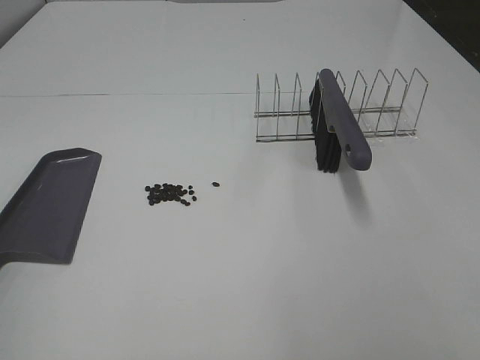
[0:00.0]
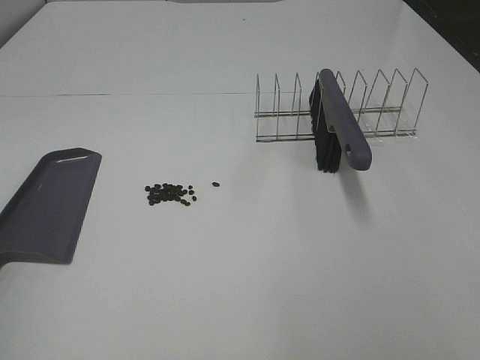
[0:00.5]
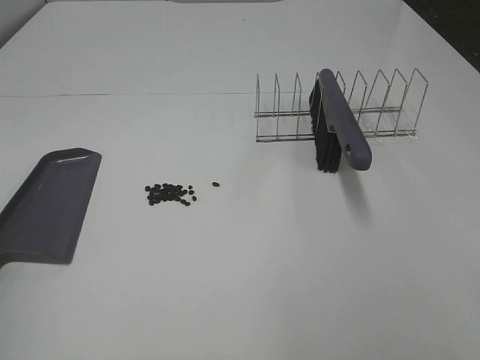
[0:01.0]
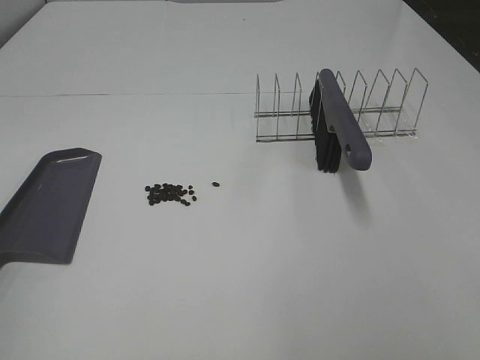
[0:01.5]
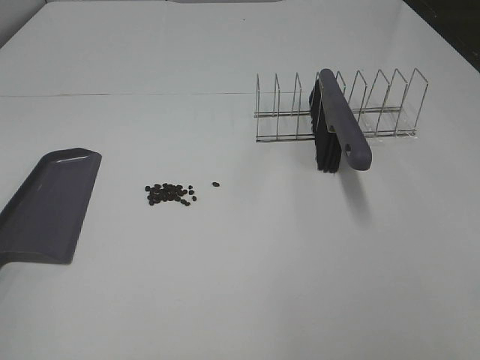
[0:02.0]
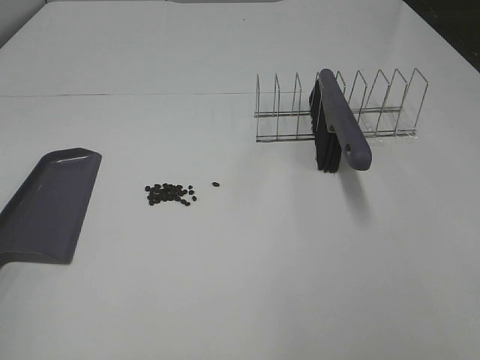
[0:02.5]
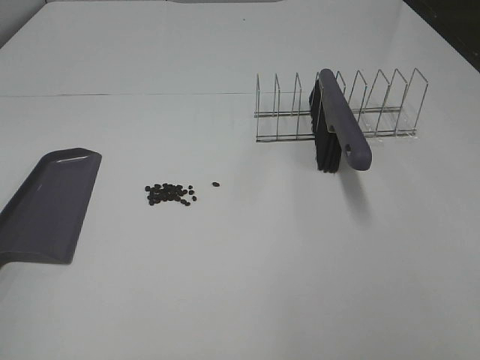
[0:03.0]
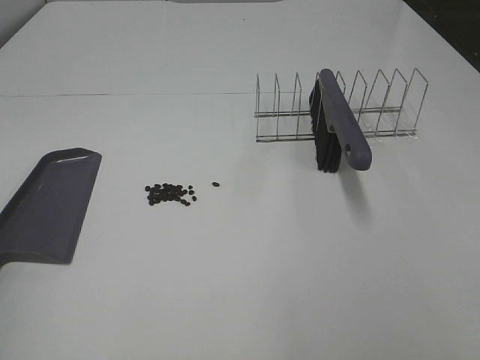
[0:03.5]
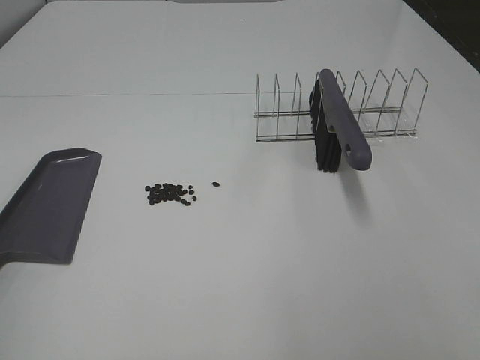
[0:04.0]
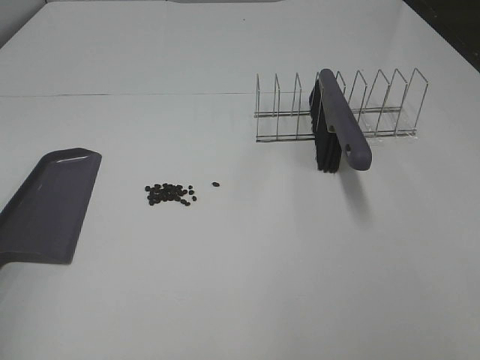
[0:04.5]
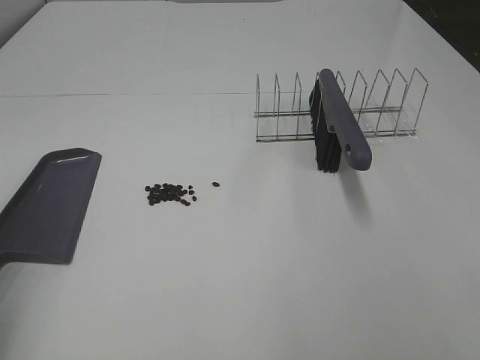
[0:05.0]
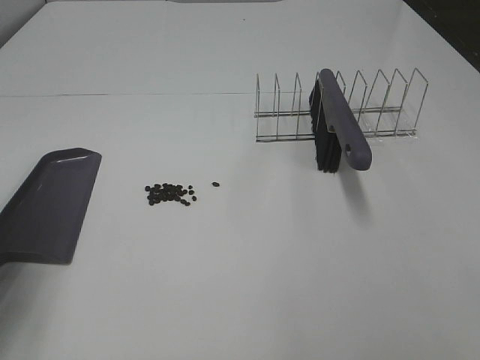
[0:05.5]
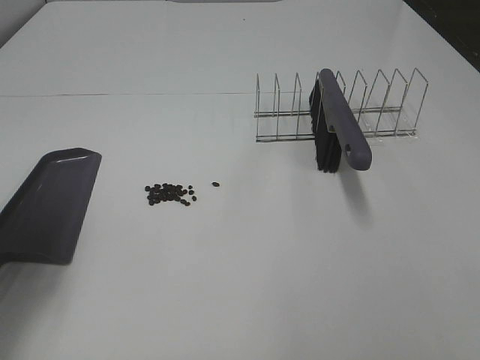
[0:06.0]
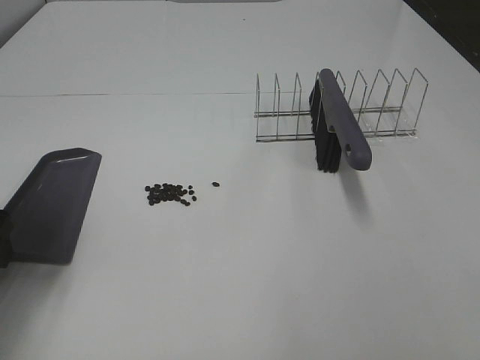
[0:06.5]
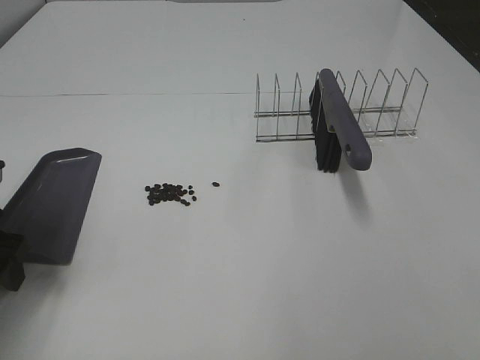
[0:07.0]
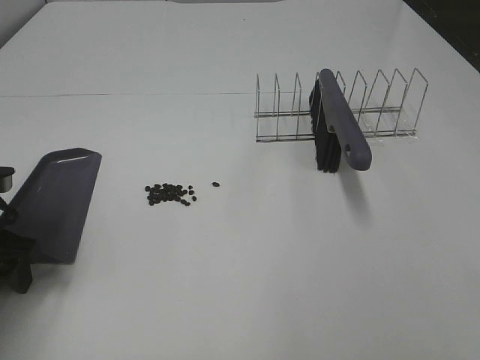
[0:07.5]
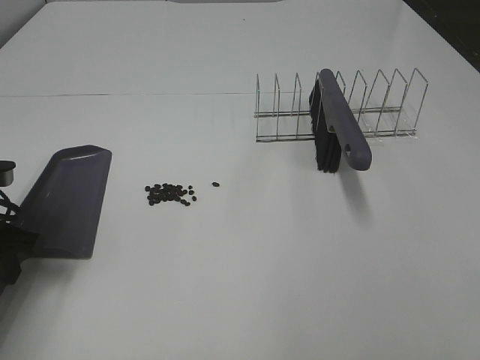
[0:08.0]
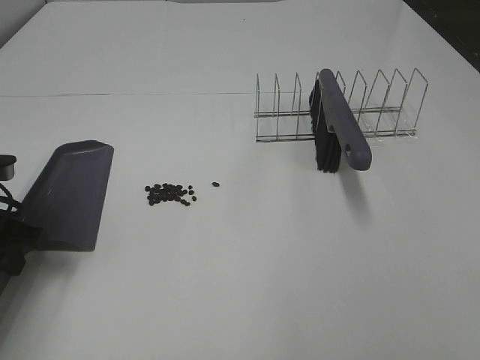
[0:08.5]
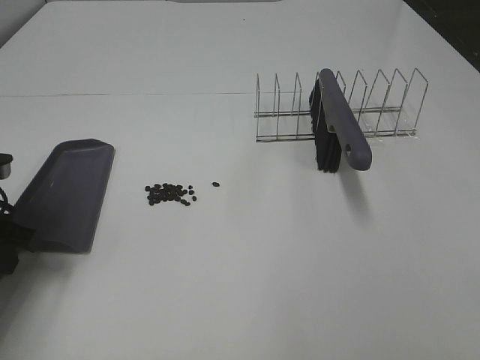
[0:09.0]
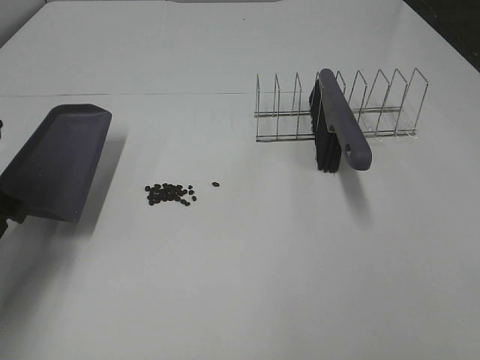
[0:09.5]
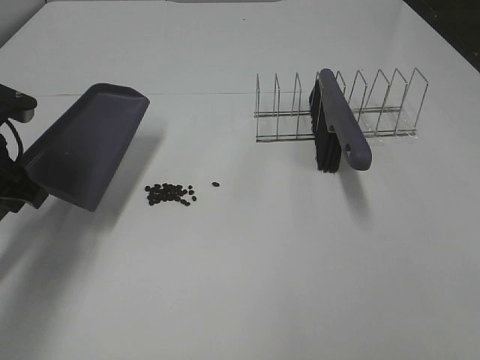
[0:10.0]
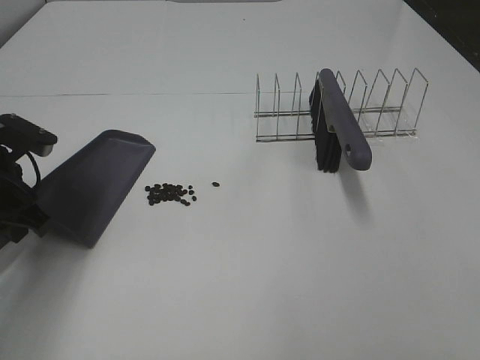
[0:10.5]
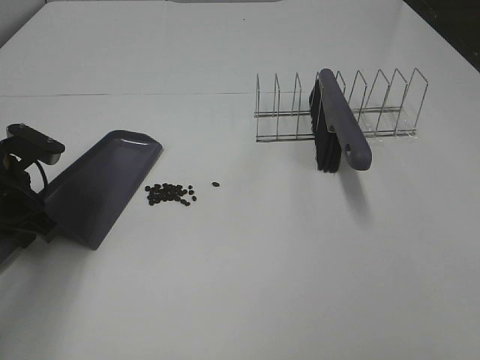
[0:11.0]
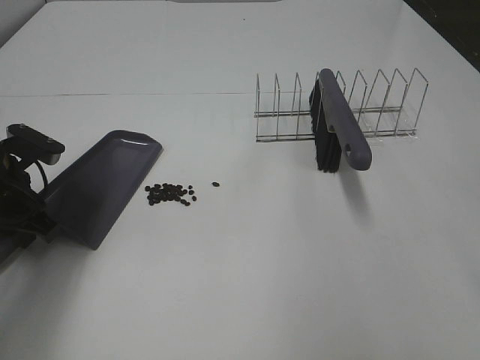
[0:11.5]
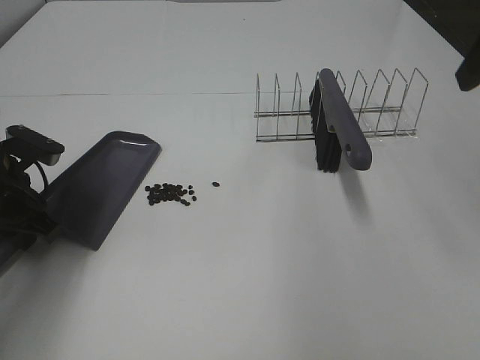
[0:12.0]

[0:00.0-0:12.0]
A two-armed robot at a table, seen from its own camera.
Task of the whole recording: Sweep Coffee Bean.
Step, 0:00.0 to 0:08.0: Left hand: grab the dustpan.
Step, 0:08.5 to 0:11.5: Left hand: move the dustpan to the left side of the coffee beans.
0:00.0 to 0:04.0: Both grippers stay about where they are.
0:04.0 to 0:06.0: The left gripper is displaced forward and downward by about 25 cm.
0:06.0 to 0:08.0: The left gripper is displaced downward by approximately 10 cm, and closes its fingers.
0:08.0 to 0:10.0: The left gripper heads upward, covering roughly 5 cm.
0:10.0 to 0:12.0: The left gripper travels downward by some 5 cm.

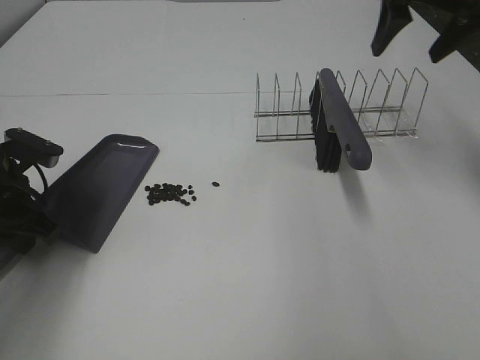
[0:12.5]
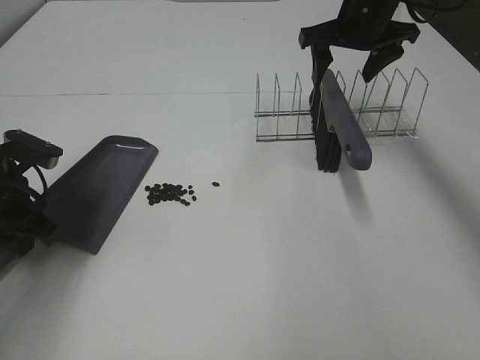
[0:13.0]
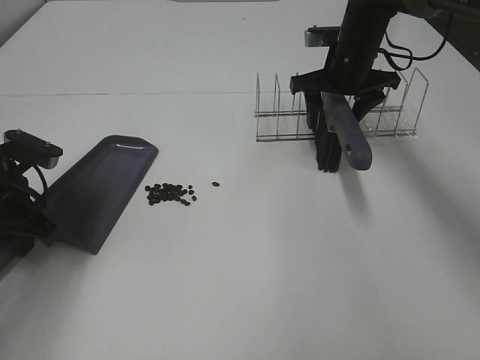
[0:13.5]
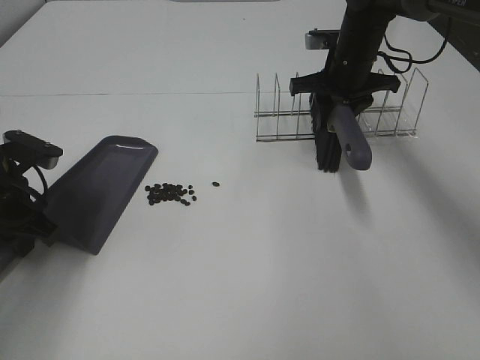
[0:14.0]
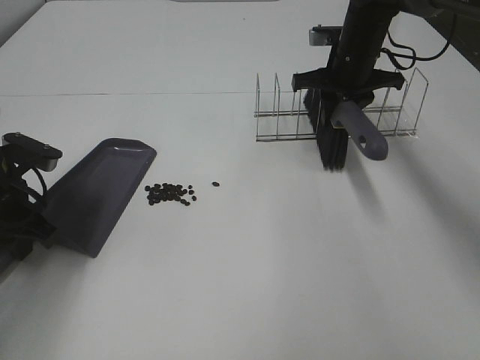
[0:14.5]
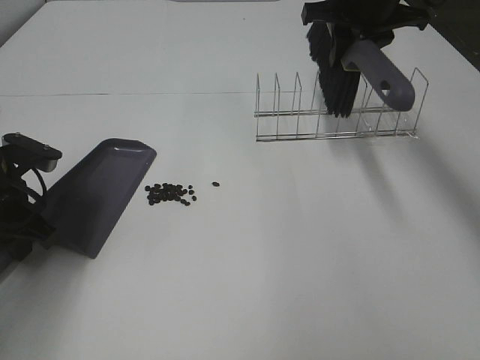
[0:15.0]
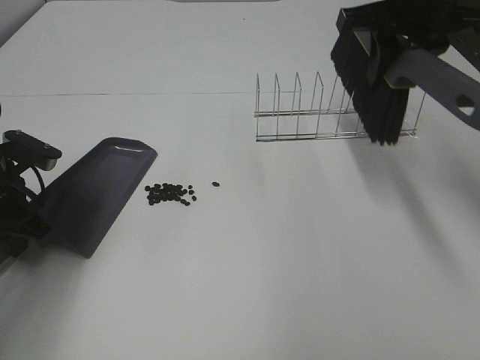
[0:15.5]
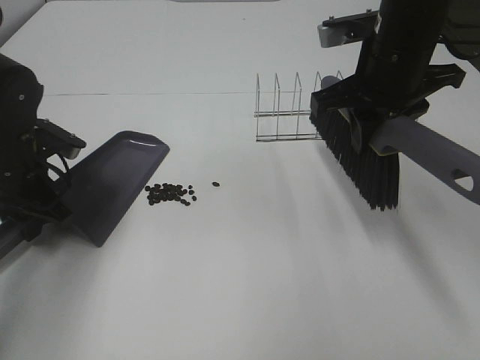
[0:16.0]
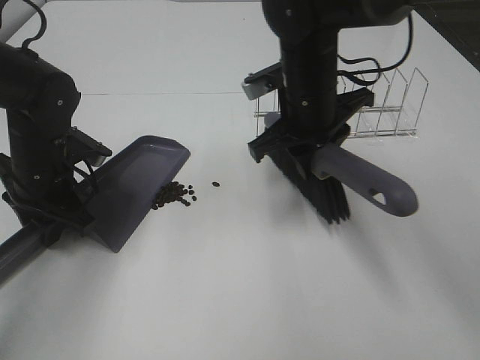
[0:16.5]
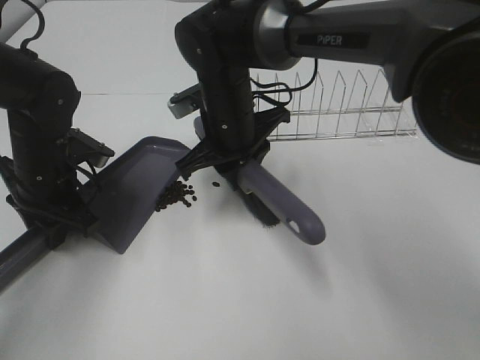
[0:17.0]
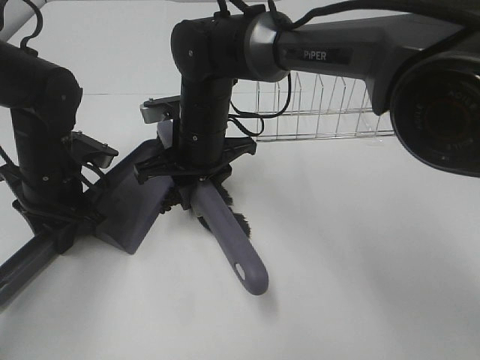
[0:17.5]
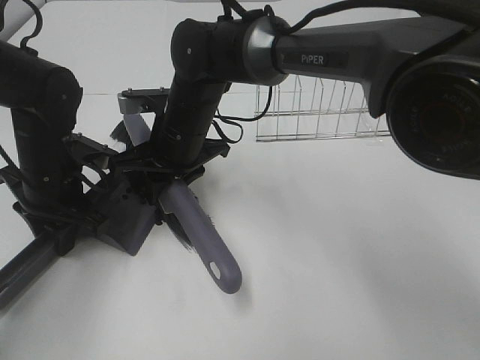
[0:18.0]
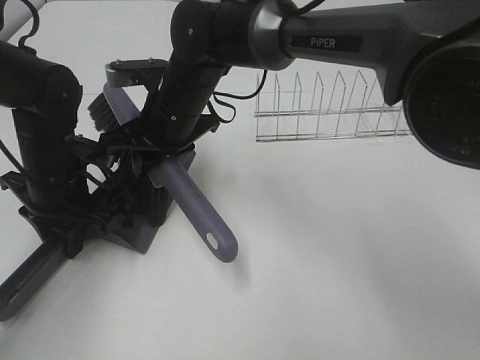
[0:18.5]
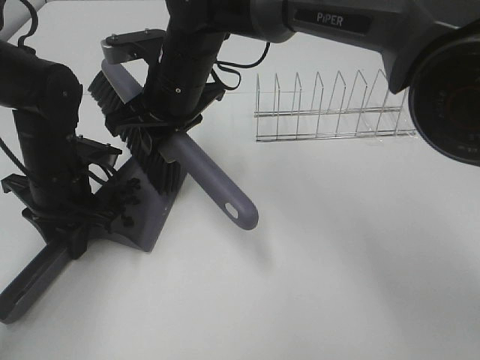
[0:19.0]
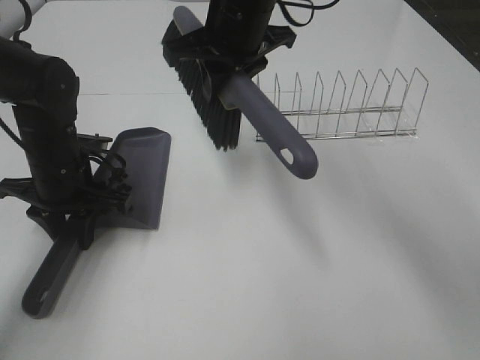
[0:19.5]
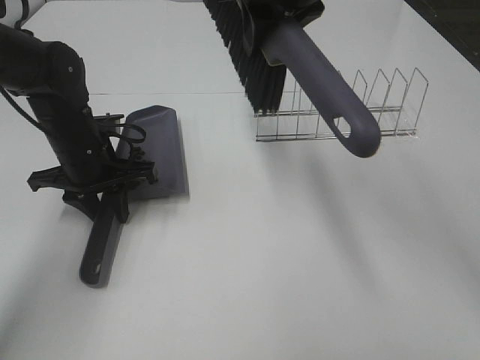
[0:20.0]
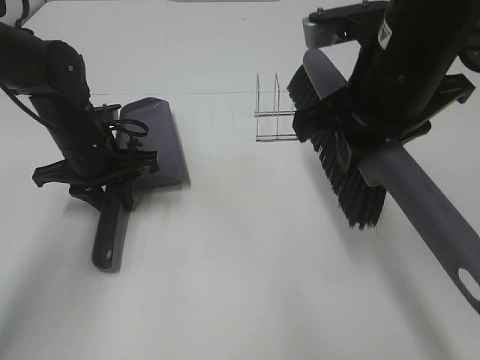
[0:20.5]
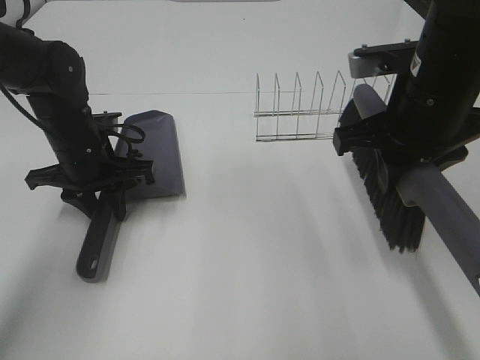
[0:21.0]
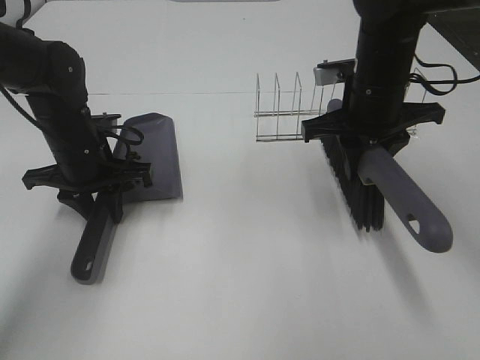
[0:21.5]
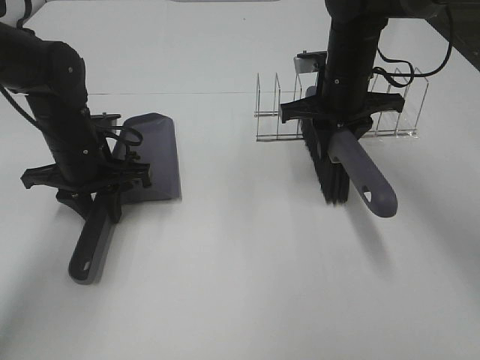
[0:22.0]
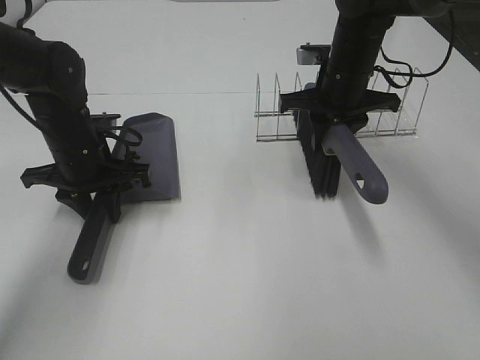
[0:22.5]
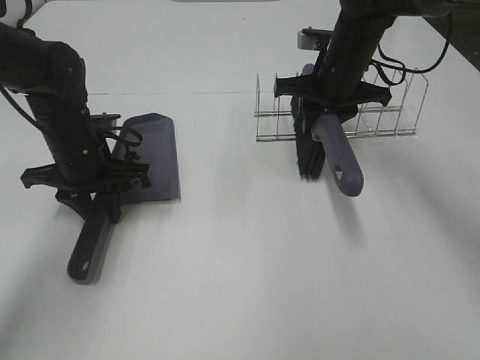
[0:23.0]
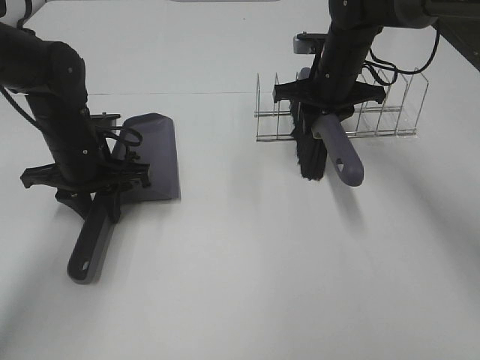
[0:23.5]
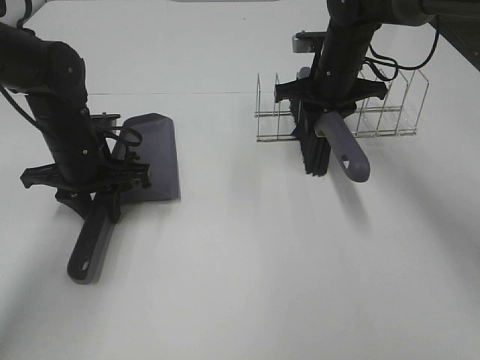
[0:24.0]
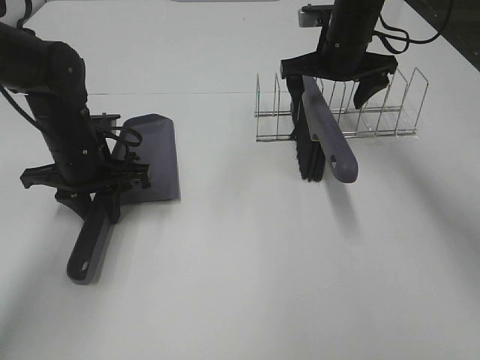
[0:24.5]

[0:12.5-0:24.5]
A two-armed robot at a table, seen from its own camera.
Task of the whole recording: Sweep Coffee Bean.
Step, 0:14.5 to 0:19.0: Right hand:sweep the coffee beans into the dustpan.
Step, 0:19.5 to 0:24.5: Right hand:place the broom on the rack.
0:12.5 to 0:14.5: The right gripper moves downward, forward and to the left, about 15 cm, and closes its fingers.
0:14.5 to 0:16.5: The right gripper moves backward and to the left, some 15 cm, while the left gripper moves about 5 cm.
0:16.5 to 0:18.5: The right gripper shifts approximately 15 cm to the left.
0:18.5 to 0:20.5: The left gripper ends up approximately 5 cm from where it was, while the right gripper moves to the right, upward and backward, roughly 25 cm.
0:20.5 to 0:22.5: The right gripper shifts approximately 20 cm forward and downward.
0:22.5 to 0:24.5: The right gripper opens.

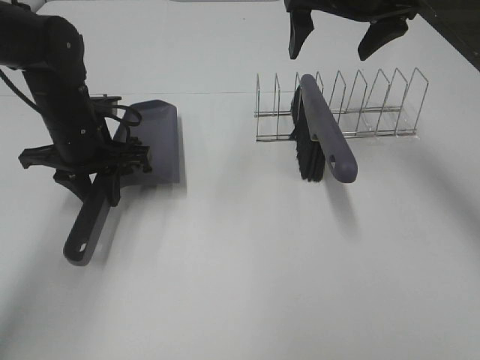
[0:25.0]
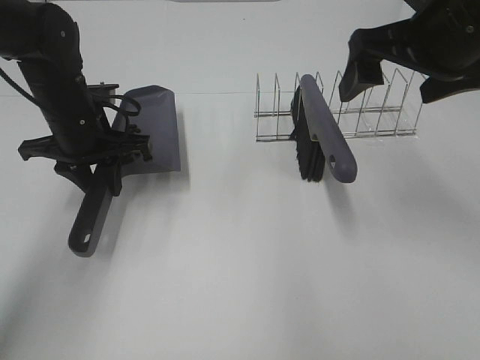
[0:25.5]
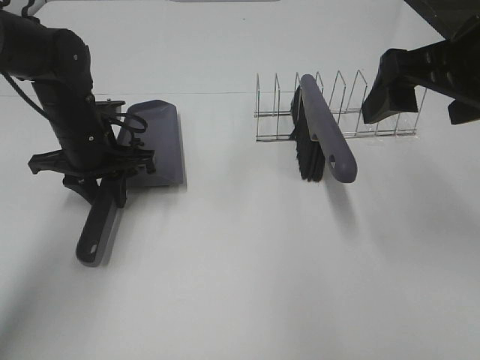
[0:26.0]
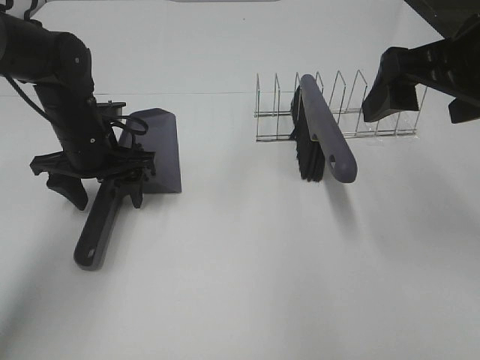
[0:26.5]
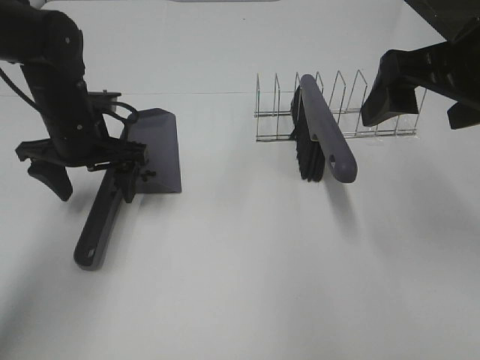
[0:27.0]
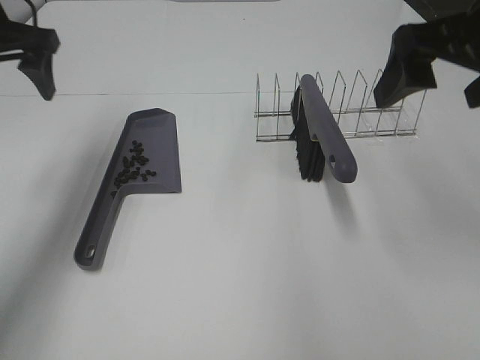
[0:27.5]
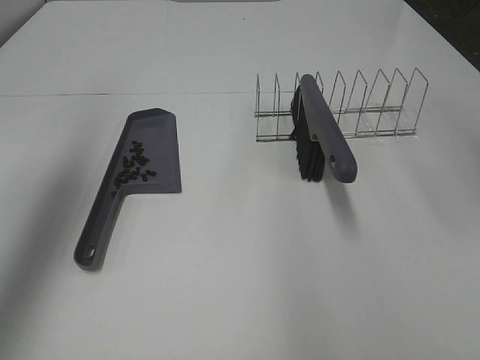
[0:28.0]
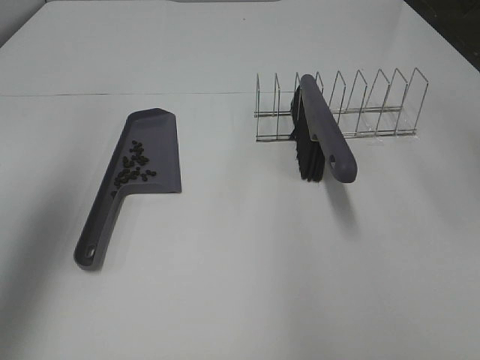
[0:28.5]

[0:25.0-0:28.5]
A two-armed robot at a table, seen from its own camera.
Task of the whole recording: Sweep Coffee Bean.
Step, 0:25.0 to 0:26.5: Left hand:place the dustpan on the table.
0:25.0 to 0:27.0: The left gripper opens its fingers. The right gripper heads backward, covering about 20 cm.
0:27.0 to 0:28.5: The left gripper is displaced upward, to the left and backward by about 35 cm; the right gripper heads upward and to the right, covering about 10 cm.
